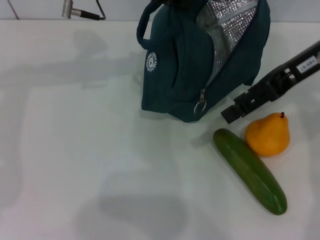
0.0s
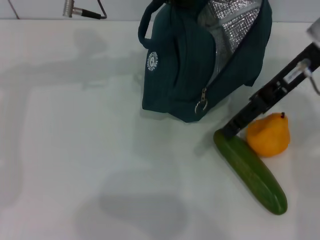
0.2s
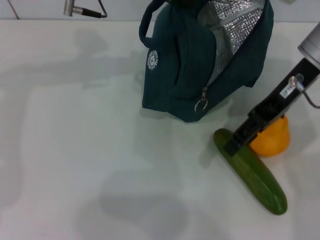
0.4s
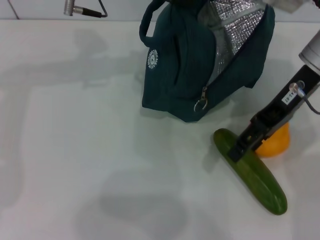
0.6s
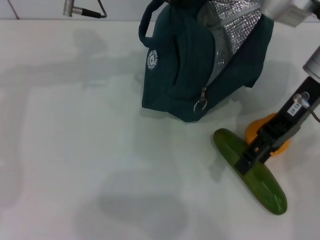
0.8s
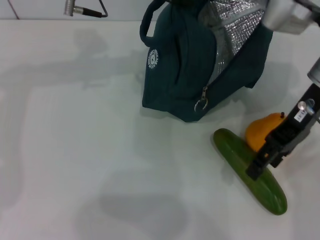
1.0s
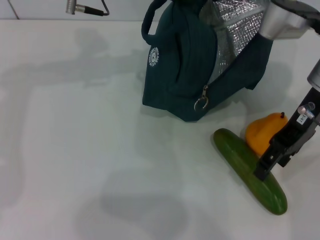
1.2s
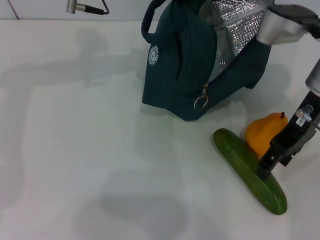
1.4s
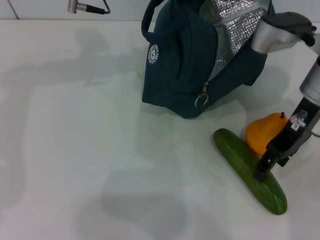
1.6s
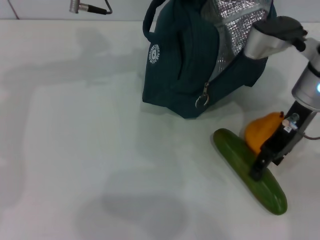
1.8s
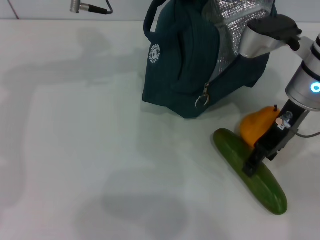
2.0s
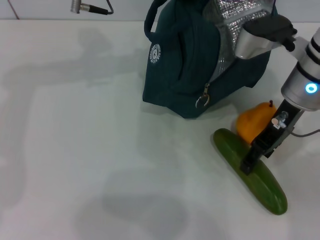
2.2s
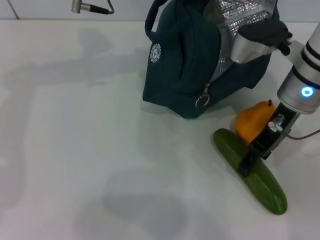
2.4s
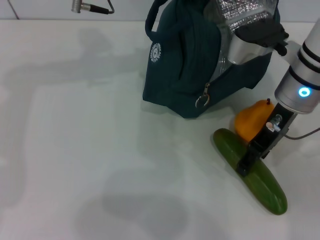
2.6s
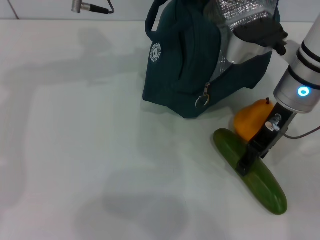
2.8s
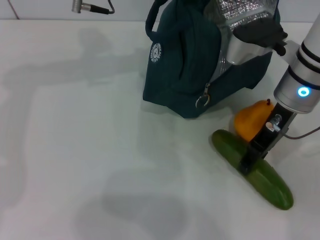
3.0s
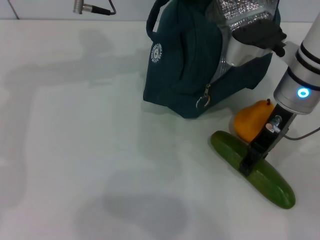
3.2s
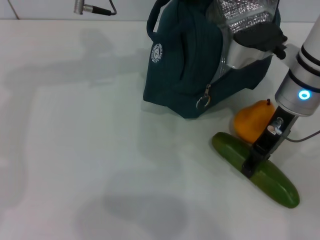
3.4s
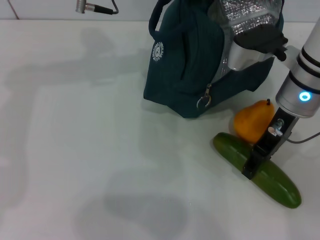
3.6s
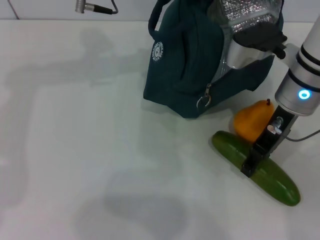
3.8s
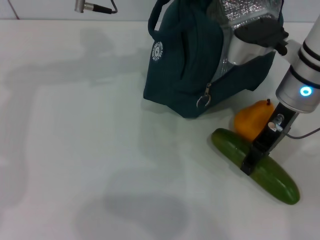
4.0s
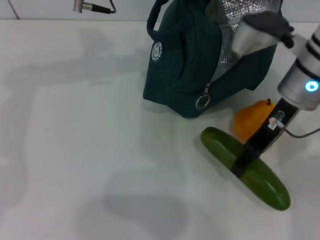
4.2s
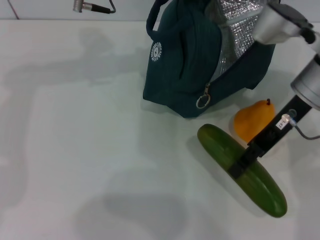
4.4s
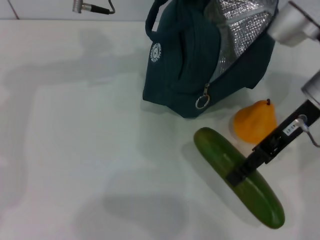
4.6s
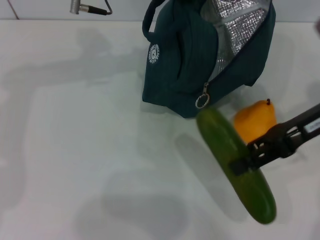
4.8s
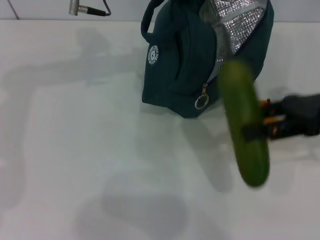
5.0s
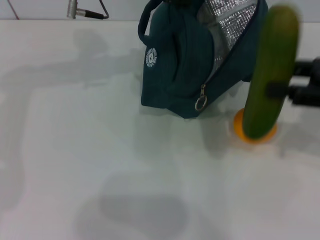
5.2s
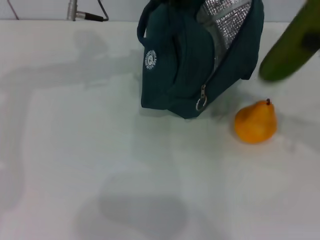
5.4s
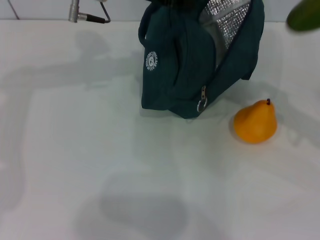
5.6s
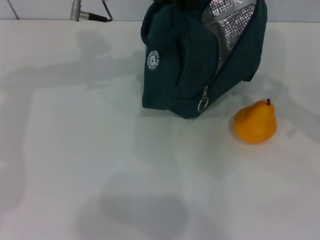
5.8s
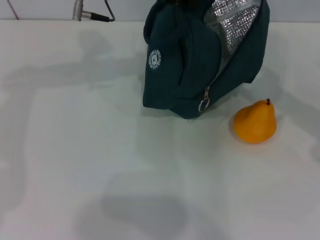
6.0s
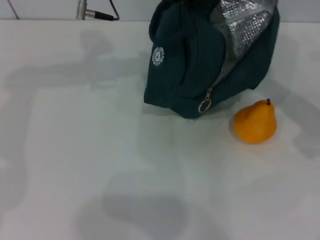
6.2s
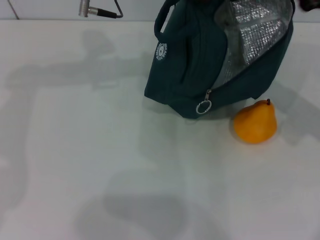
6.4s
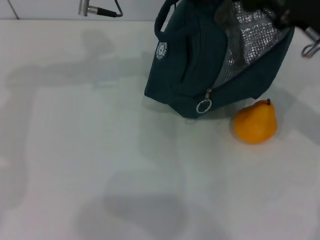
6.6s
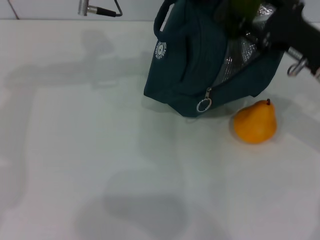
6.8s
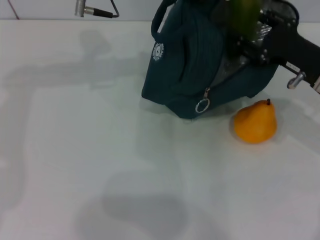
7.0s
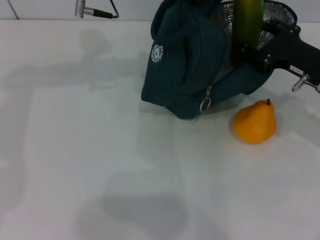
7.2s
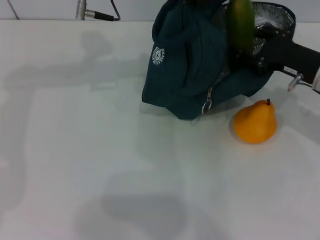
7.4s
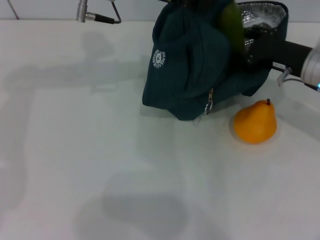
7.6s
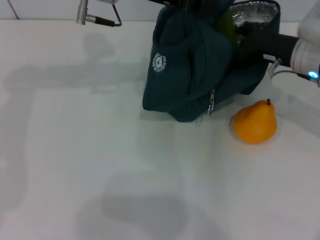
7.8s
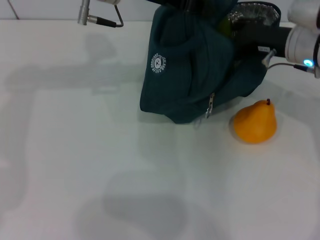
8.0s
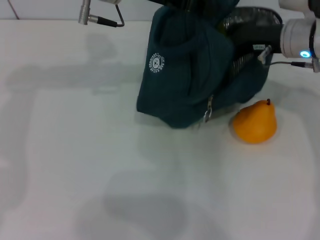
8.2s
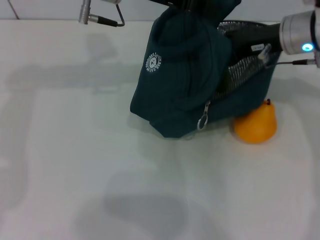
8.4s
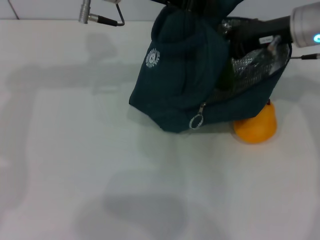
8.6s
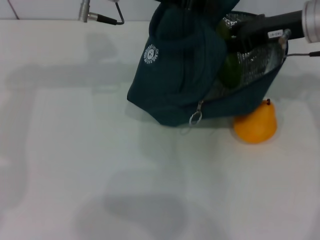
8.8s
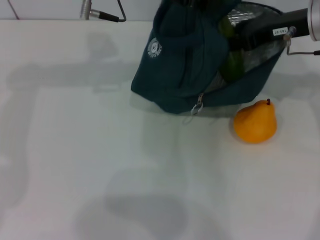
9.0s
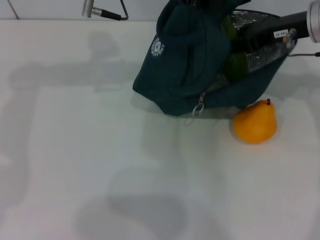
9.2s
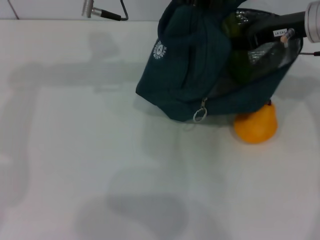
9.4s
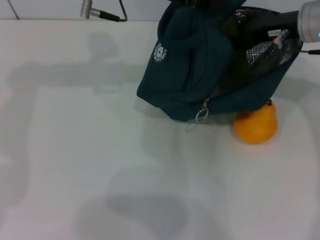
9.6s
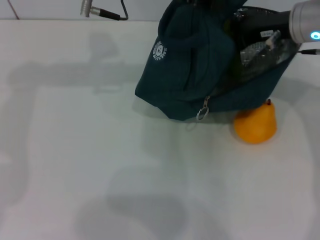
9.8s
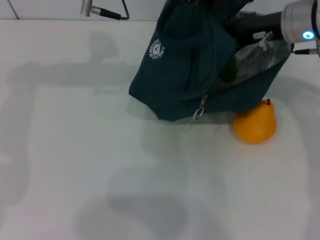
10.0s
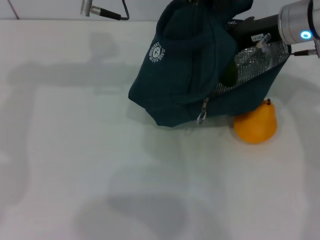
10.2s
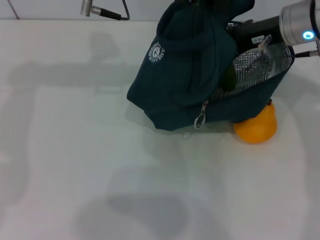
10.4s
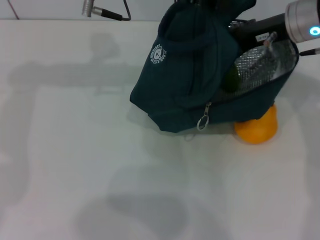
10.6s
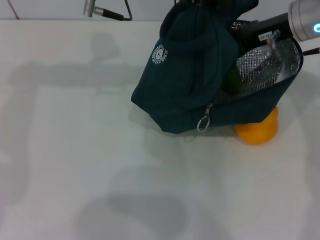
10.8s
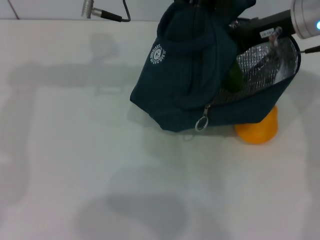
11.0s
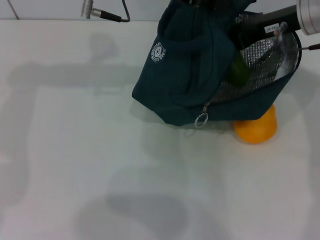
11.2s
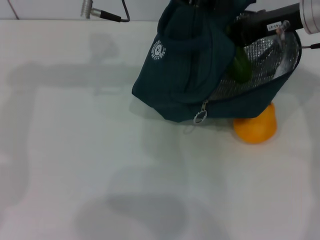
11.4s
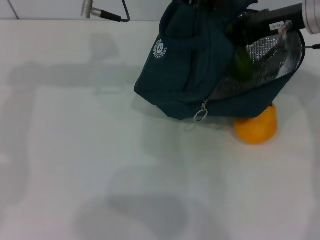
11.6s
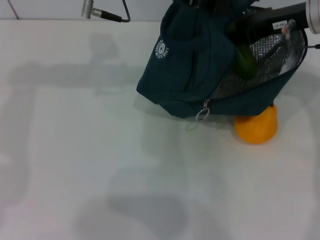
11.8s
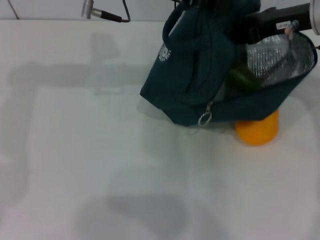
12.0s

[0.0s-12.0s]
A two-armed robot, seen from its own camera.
Step, 0.0s to 3.4s: Pick up the cucumber with your right hand.
0.0s to 1.6s: The right gripper travels downward by approximately 5 cm.
1.6s to 4.4s: The grippers move only a little.
4.4s to 6.0s: The right gripper is displaced to the right by about 15 cm.
6.0s to 7.6s: The right gripper shifts some 10 cm forward and to the left.
7.6s to 9.0s: The right gripper heads upward, covering roughly 10 cm.
9.0s to 12.0s: The grippers make only small movements.

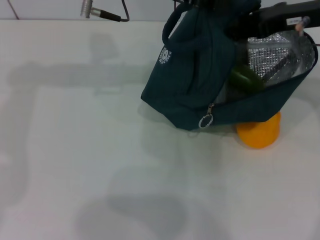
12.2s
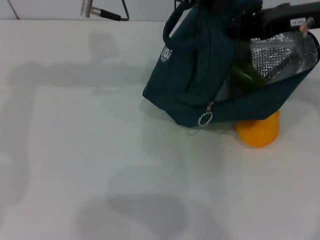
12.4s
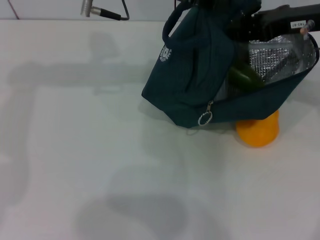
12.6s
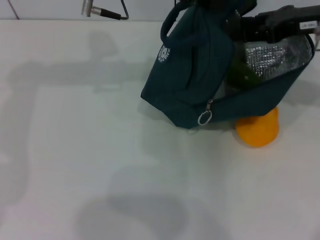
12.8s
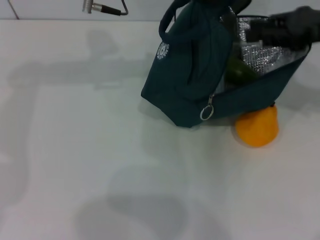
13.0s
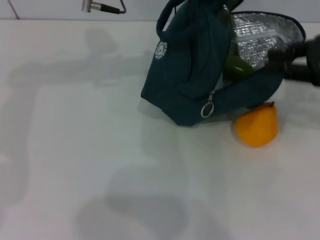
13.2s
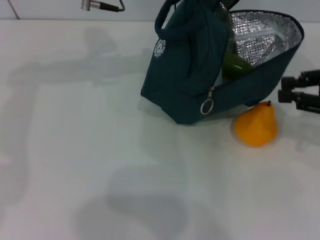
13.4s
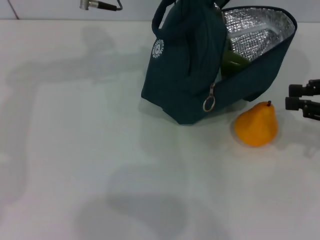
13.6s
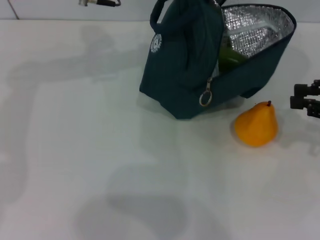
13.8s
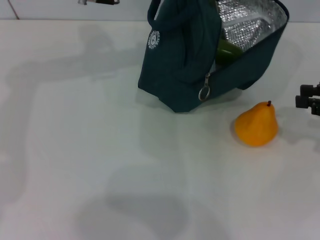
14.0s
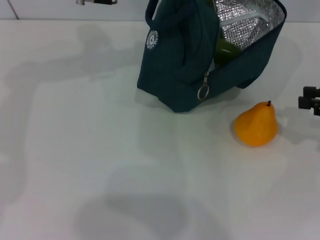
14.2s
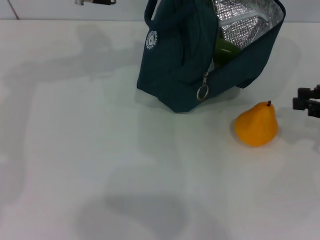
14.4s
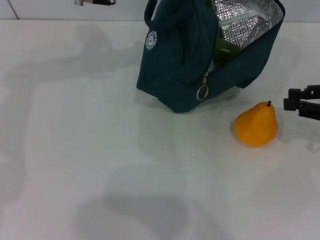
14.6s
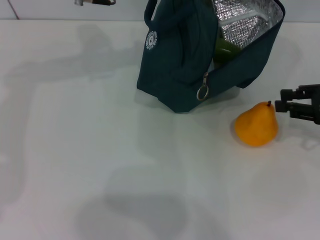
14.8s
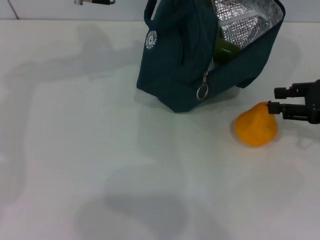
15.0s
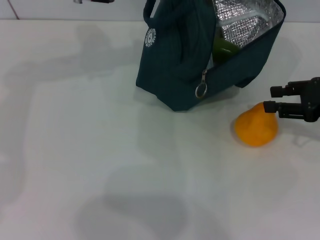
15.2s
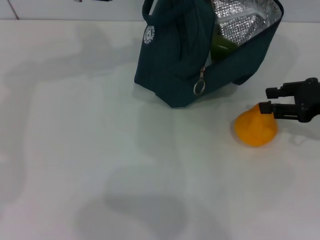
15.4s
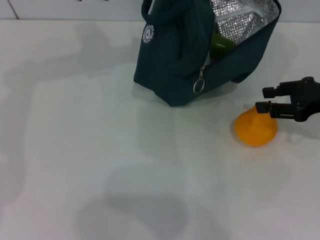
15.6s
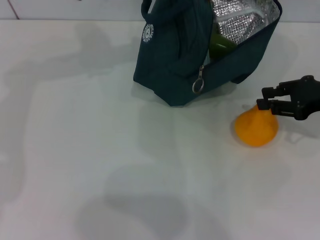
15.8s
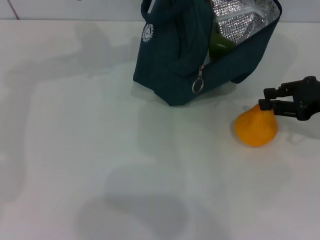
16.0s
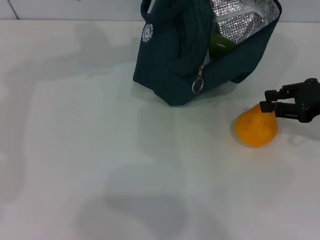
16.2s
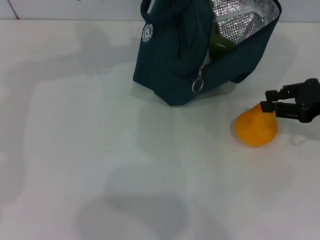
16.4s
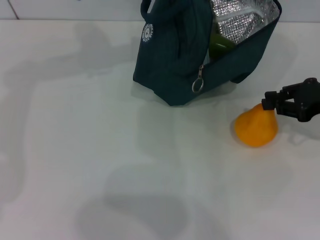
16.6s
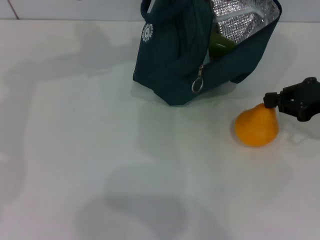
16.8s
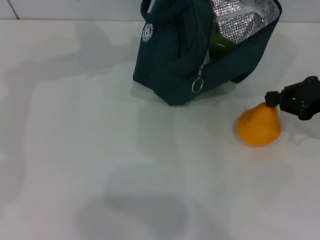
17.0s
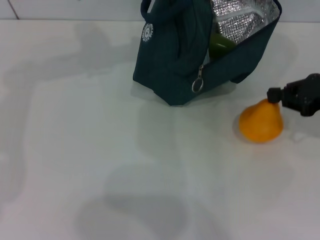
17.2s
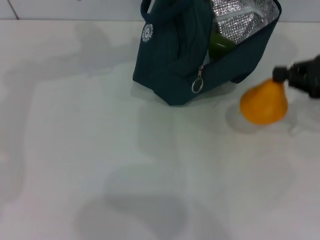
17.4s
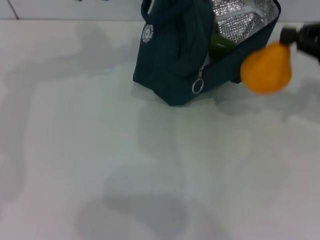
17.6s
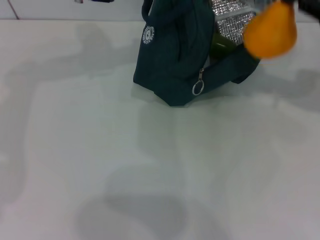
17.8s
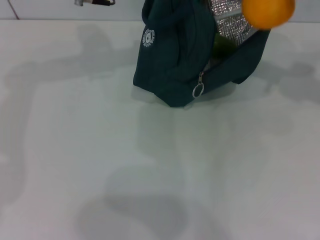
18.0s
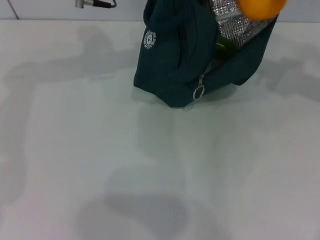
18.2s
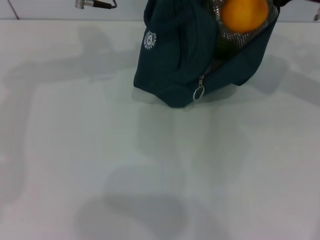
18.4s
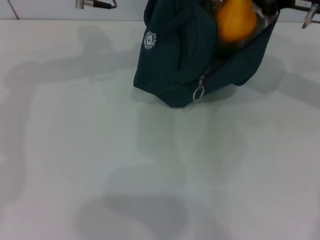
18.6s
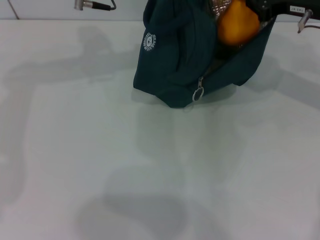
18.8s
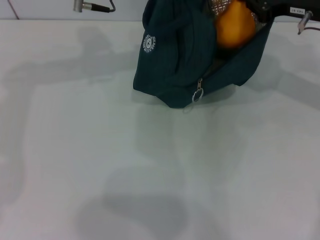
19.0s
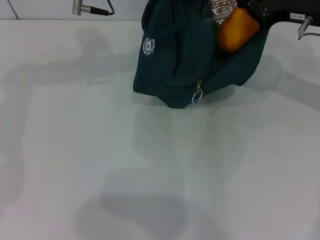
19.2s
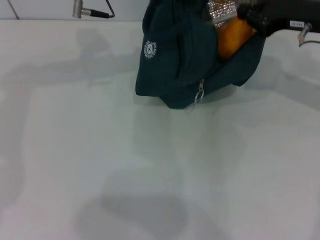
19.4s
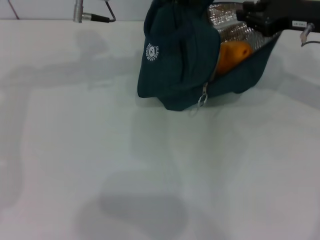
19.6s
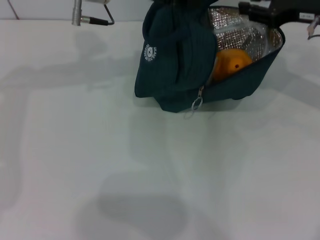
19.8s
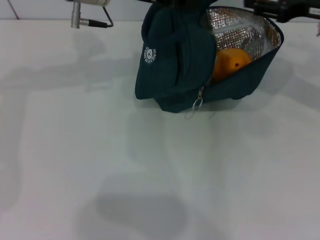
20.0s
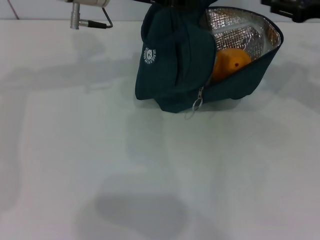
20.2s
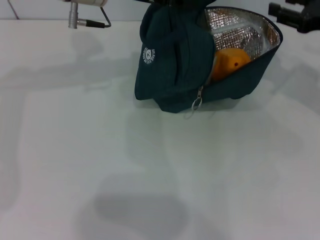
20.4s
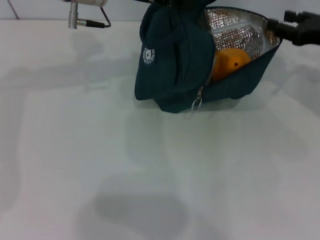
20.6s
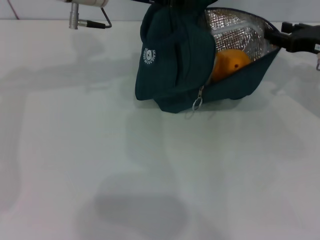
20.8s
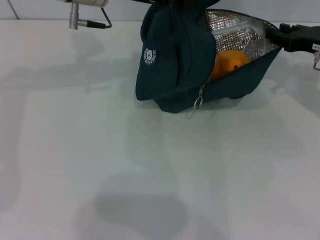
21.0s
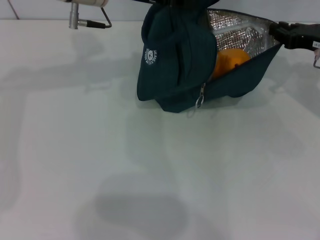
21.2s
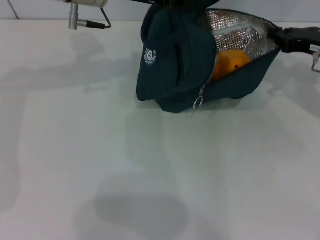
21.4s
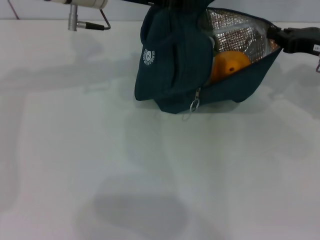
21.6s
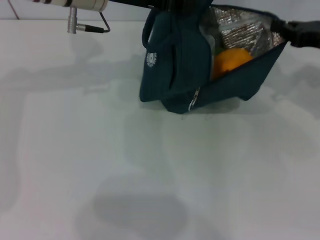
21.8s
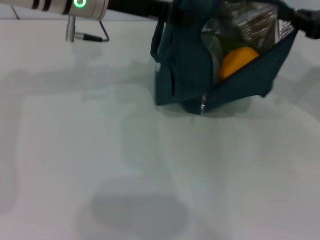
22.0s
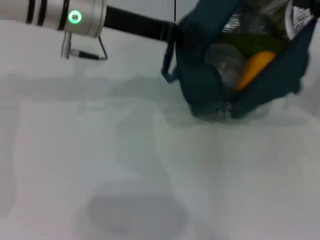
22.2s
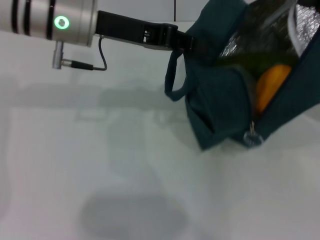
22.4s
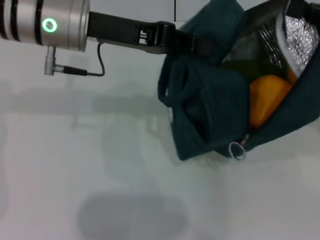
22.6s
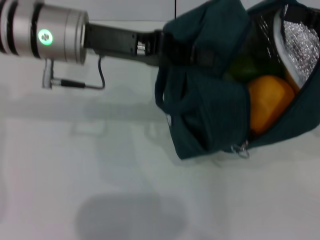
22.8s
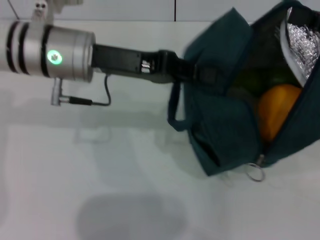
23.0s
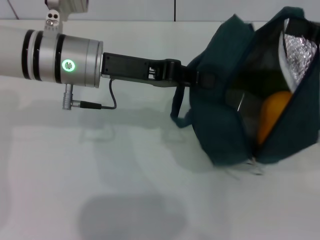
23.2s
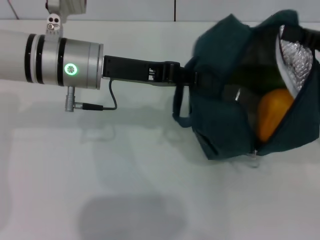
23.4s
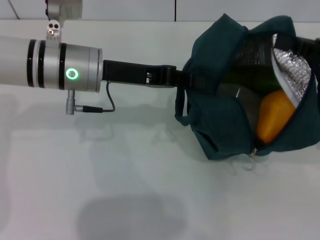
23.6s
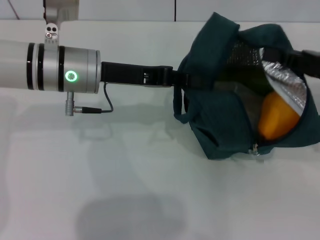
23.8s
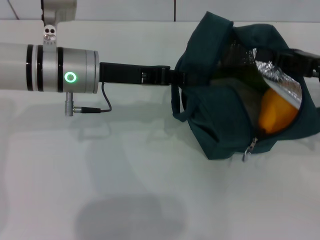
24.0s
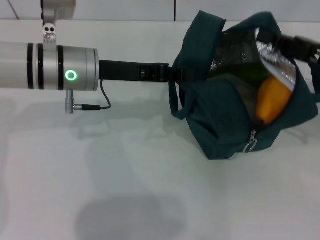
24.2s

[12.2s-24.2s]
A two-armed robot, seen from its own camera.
Step, 12.4s to 16.8s: Grab the pear with your right hand.
12.2s to 13.8s: The right gripper moves to the right, backward and downward, approximately 15 cm, and closes.
13.8s to 15.2s: There are only small adjustments of the grippers.
15.2s to 16.6s: The grippers move only a little.
16.6s to 18.2s: The right gripper travels upward and forward by about 10 cm.
18.2s to 19.8s: The grippers make only small movements.
19.8s to 21.2s: The right gripper heads downward, covering roughly 5 cm.
21.2s to 22.6s: The right gripper heads upward and backward, covering some 10 cm, and closes its fingers, while the left gripper shifts some 5 cm backward.
22.6s to 24.2s: The left gripper is displaced downward by roughly 10 cm, while the right gripper shifts about 5 cm downward.
